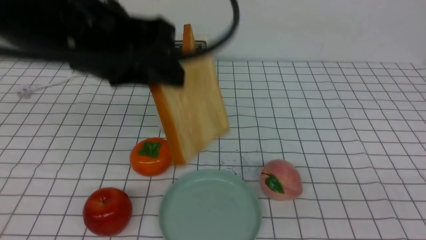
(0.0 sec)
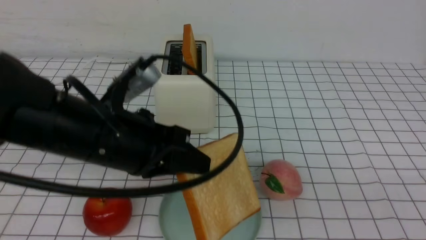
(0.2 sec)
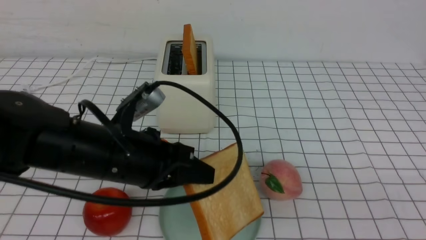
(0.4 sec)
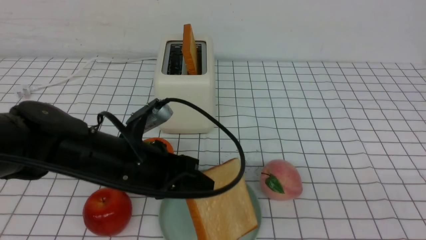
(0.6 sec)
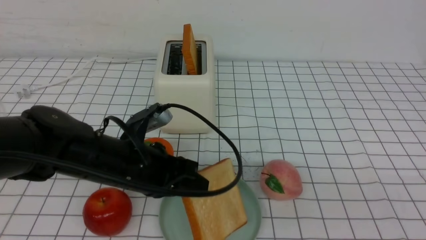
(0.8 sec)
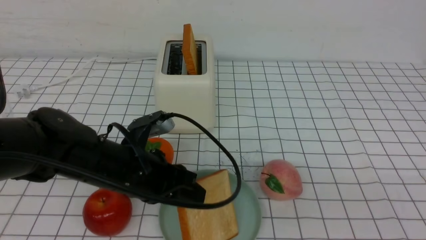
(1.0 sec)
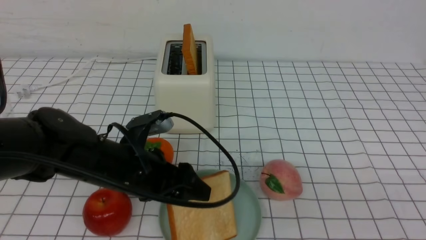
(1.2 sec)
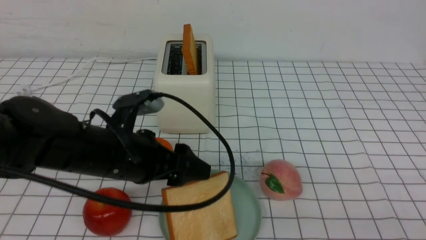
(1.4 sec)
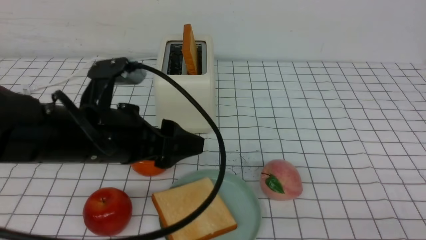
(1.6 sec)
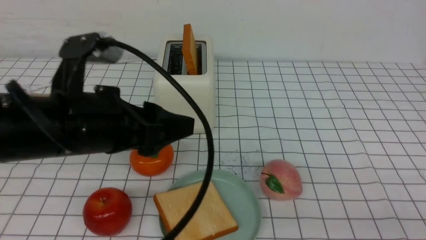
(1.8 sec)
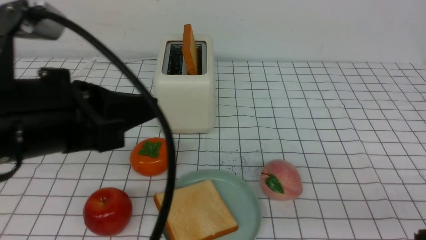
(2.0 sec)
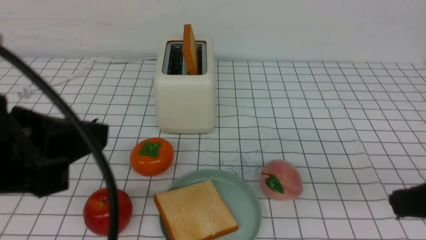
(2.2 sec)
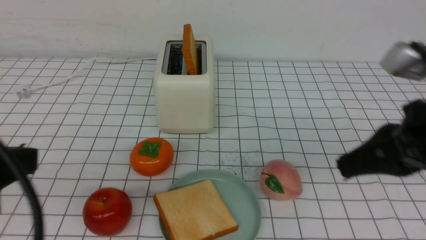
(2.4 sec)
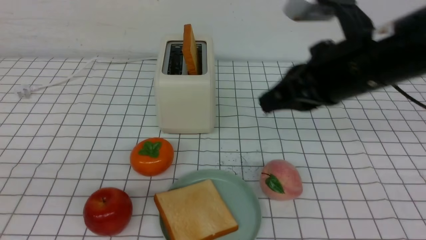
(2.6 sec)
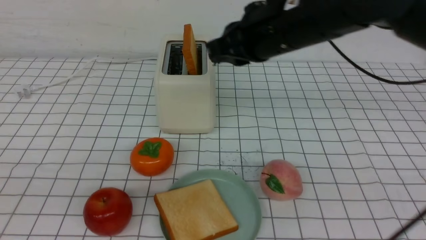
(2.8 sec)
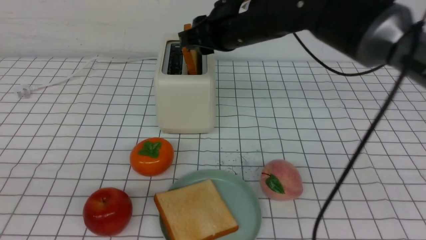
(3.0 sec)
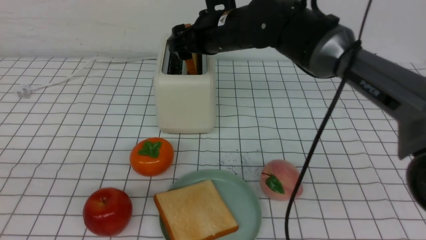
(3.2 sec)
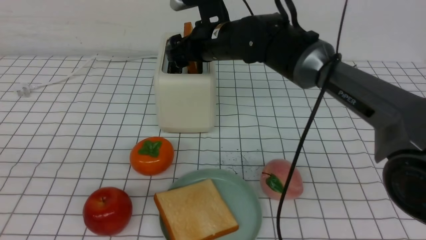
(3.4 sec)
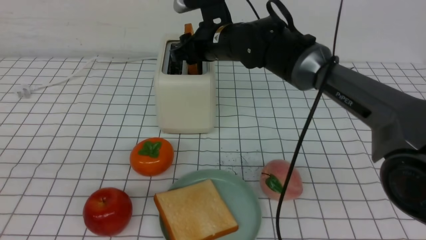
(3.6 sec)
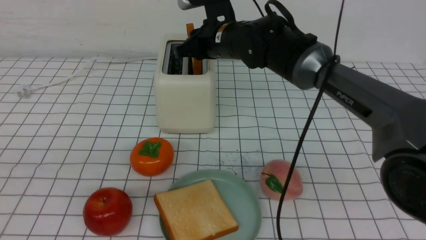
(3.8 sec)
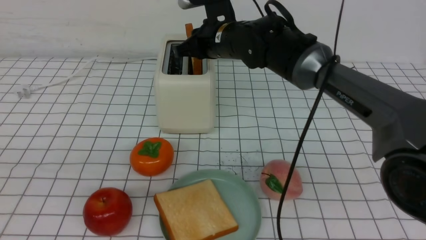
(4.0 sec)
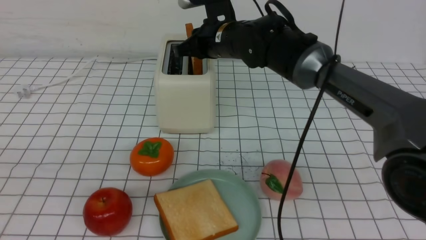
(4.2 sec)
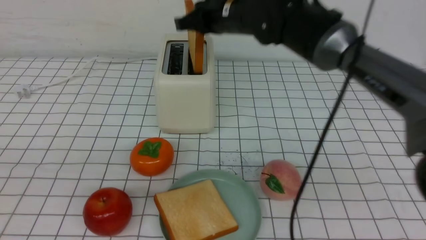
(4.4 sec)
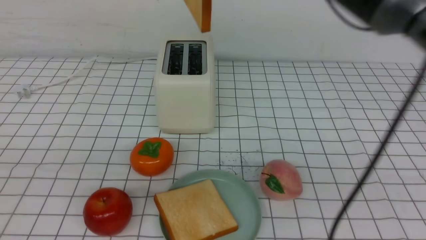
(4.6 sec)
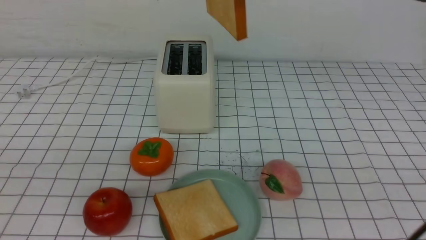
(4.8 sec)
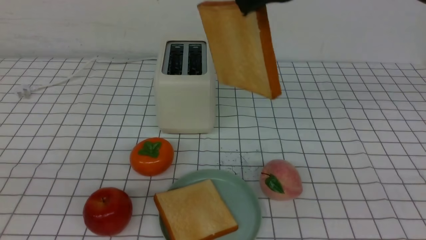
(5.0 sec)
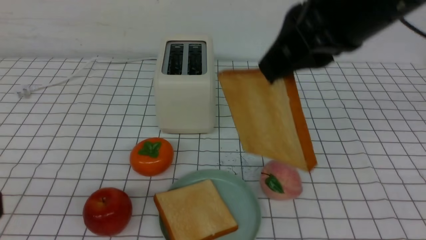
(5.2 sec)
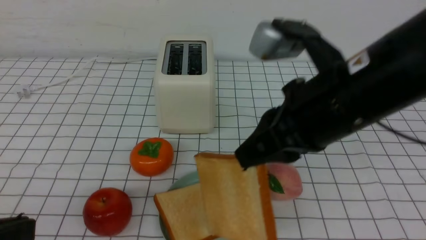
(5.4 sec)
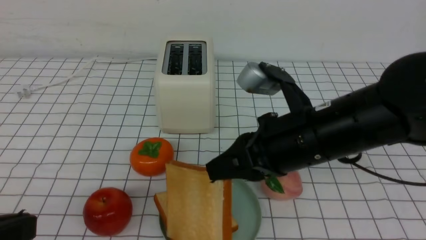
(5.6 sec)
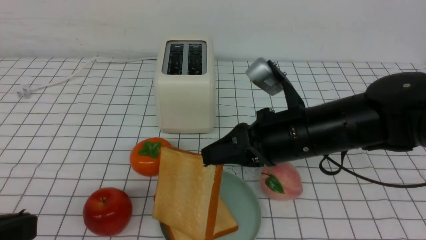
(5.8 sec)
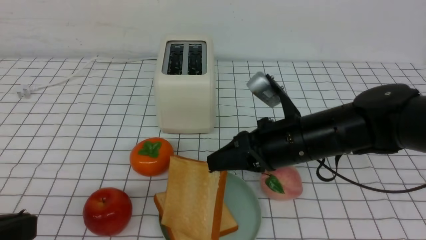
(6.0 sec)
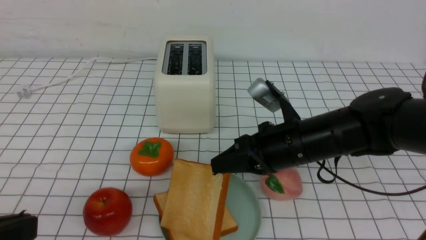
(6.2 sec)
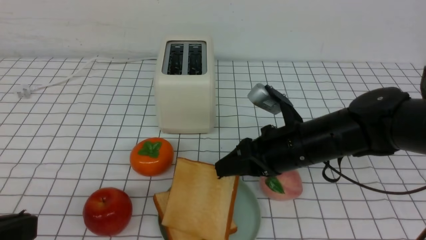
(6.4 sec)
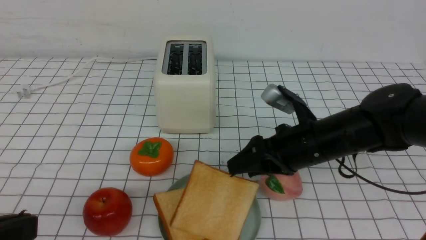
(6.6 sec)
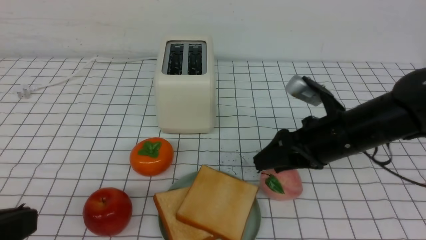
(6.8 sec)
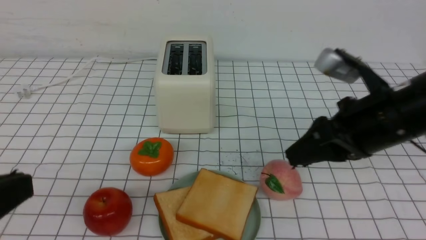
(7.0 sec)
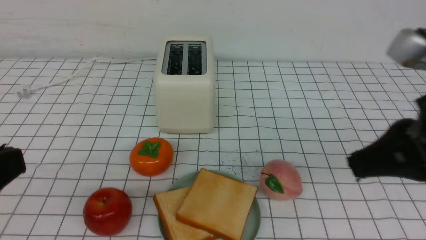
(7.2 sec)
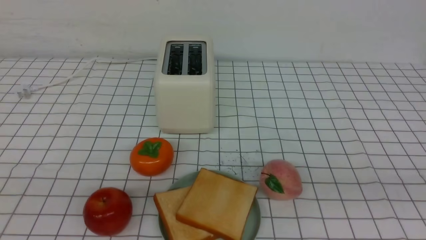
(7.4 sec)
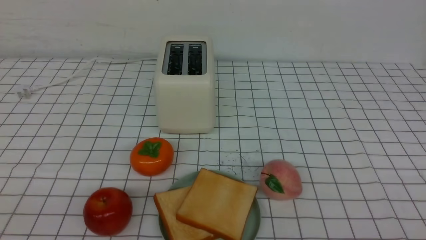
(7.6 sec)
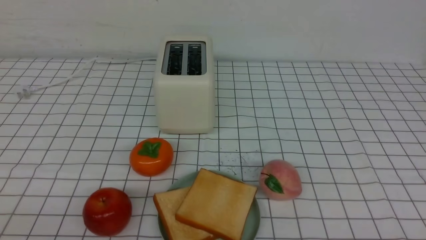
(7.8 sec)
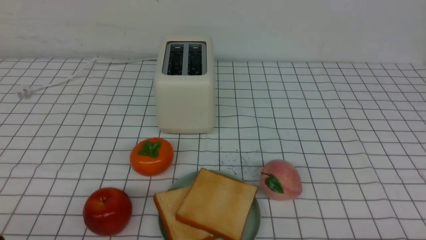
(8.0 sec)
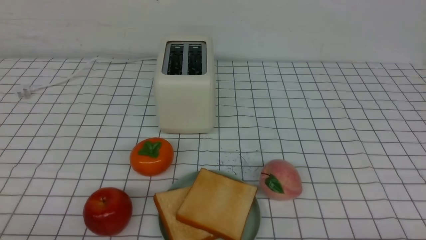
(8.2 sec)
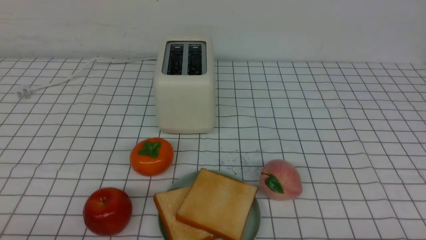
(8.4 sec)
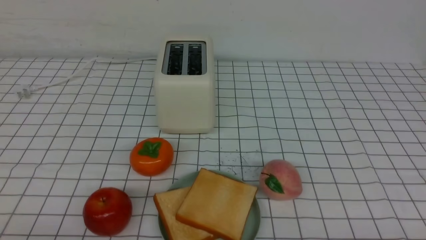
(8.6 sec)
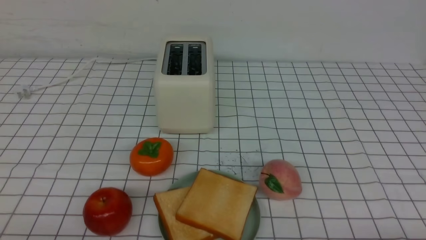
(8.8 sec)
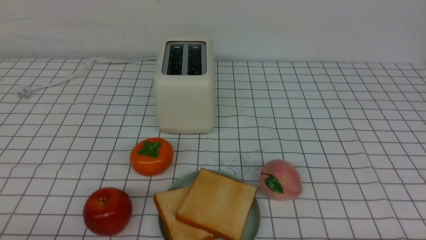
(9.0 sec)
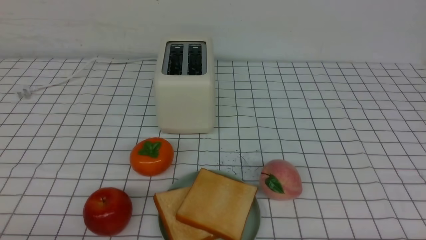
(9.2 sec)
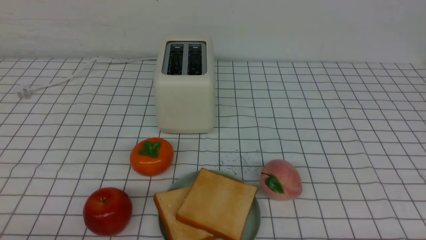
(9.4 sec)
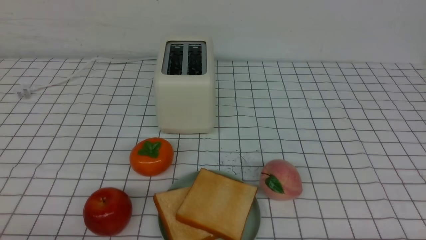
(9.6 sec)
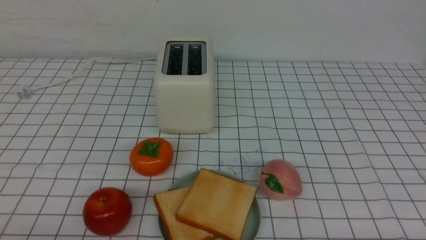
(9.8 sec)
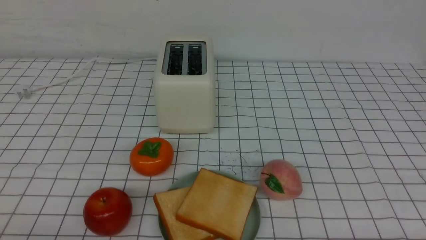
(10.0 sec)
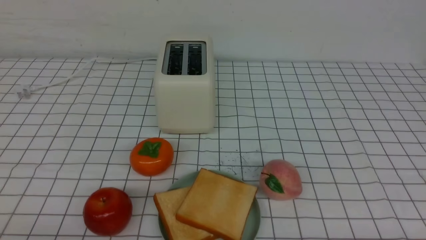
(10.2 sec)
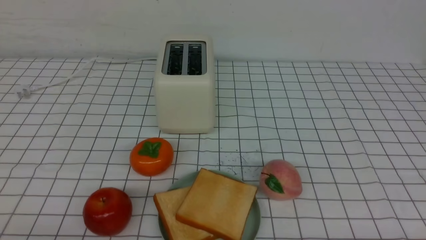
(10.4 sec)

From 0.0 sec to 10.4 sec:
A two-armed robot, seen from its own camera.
Task of the whole recording: take toasted bread from bread machine on white checkered table place on plate.
Step, from 0.0 sec to 1.6 sec: use the left arm to put a slice of bread into the empty plate.
Step, from 1.8 sec to 4.4 sec: use the right arm to take out a slice of bread.
Step, from 4.6 sec to 6.8 sec: use the right arm to put a slice of bread into the plate.
From 0.0 sec to 1.4 sec: The left gripper is displaced downward by about 15 cm, and opens its fingers.
From 1.4 sec to 3.0 sec: The right gripper moves forward and to the left, some 40 cm, and opens its fingers. The left gripper shifts some 25 cm backward, upward and to the left, and closes up.
From 3.0 sec to 4.4 sec: The right gripper moves some 5 cm downward and comes back, and closes up.
From 4.4 sec to 6.0 sec: The left gripper heads downward, covering approximately 5 cm. The right gripper goes about 20 cm backward, downward and to the right.
From 6.0 sec to 7.4 sec: The right gripper travels backward, to the right and upward by approximately 30 cm, and opens, then closes once more.

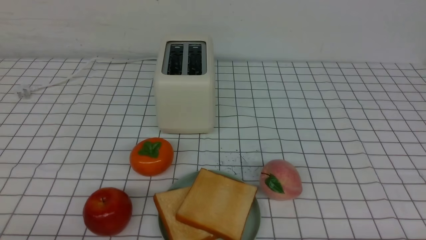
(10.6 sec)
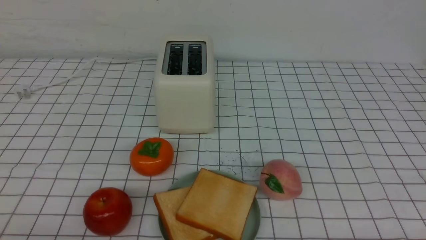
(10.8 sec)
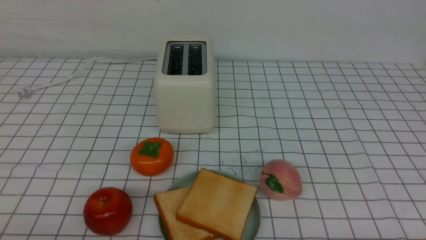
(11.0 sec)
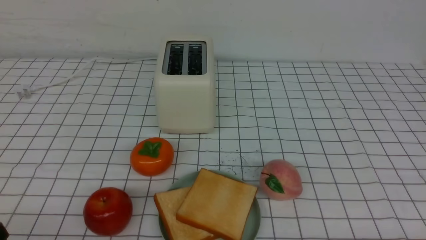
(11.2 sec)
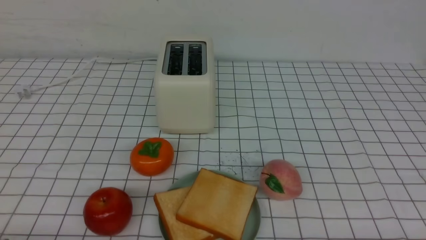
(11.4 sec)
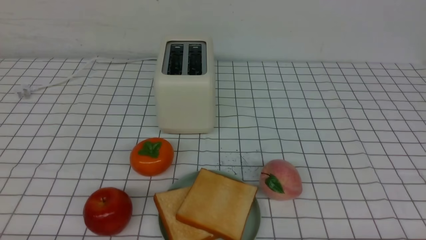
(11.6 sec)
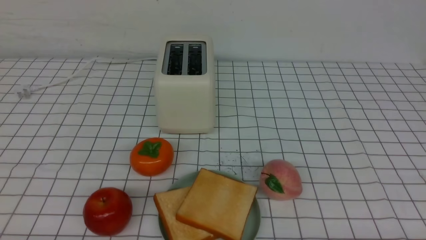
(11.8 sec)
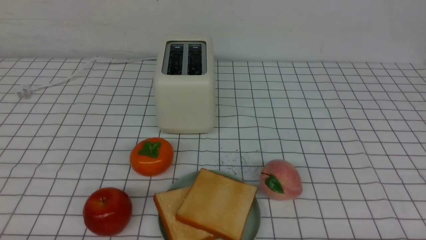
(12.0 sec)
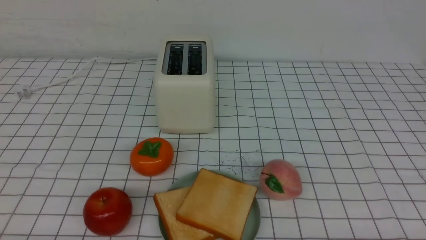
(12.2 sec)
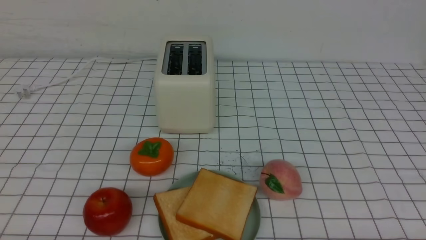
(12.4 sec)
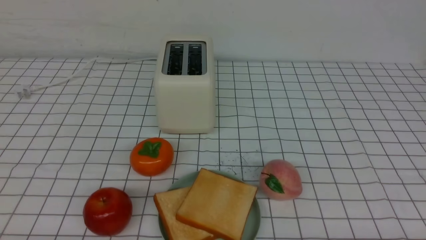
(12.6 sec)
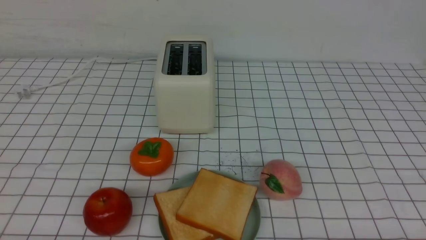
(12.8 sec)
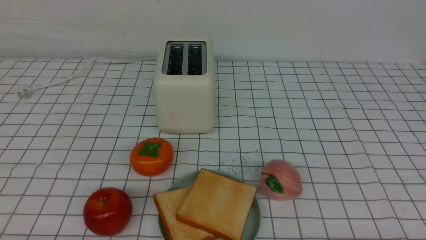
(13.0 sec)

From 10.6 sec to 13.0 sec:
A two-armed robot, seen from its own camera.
Task of the whole recording: take toasted bread from bread machine on white checkered table place on plate.
From 11.8 sec to 13.0 sec: Neither gripper changes place.
